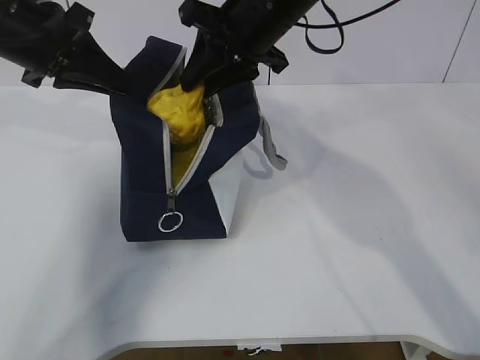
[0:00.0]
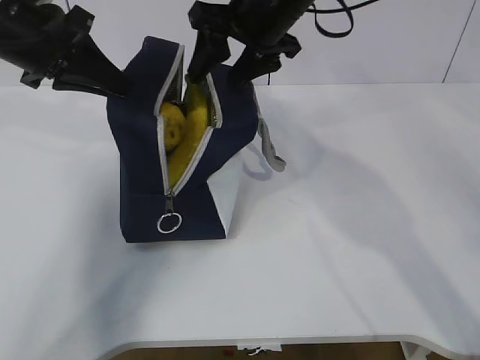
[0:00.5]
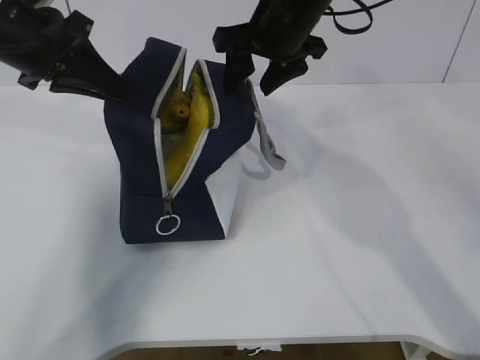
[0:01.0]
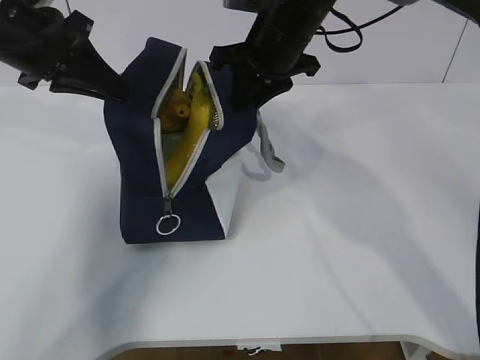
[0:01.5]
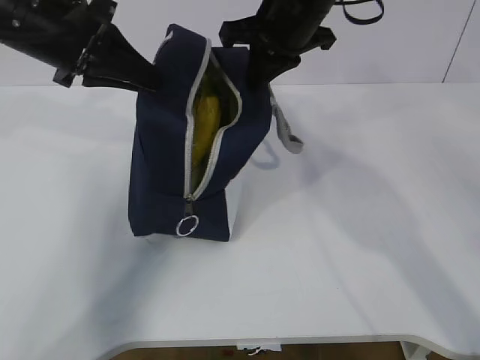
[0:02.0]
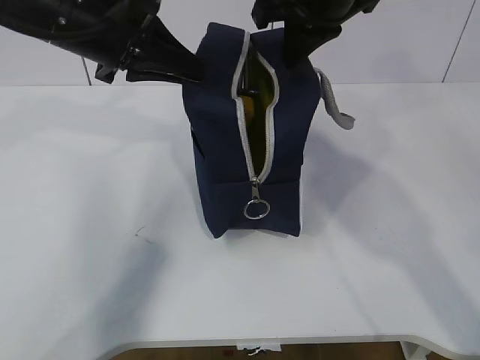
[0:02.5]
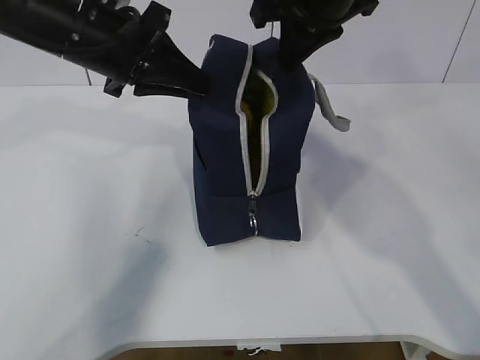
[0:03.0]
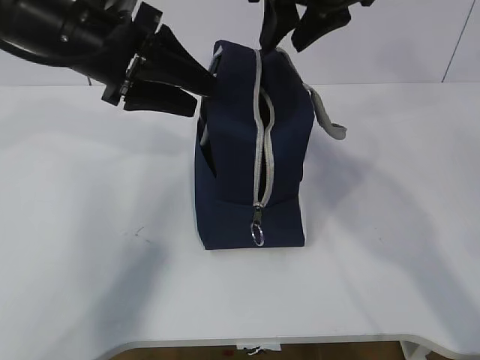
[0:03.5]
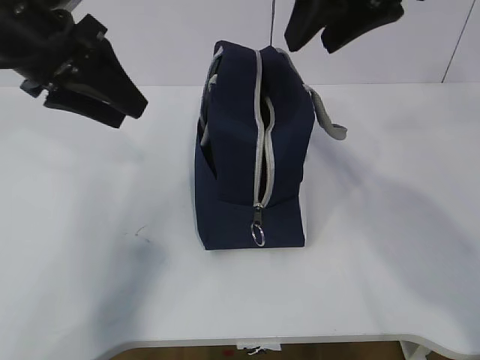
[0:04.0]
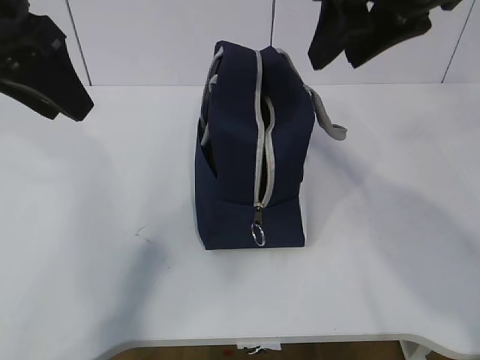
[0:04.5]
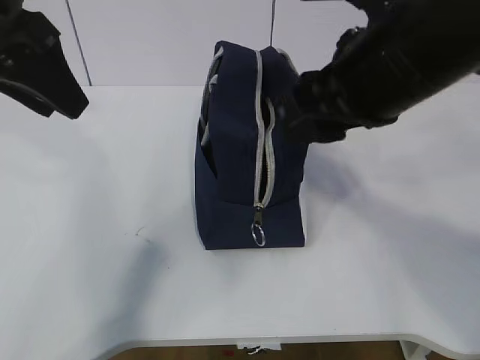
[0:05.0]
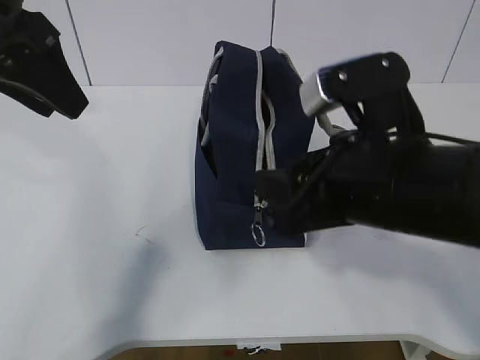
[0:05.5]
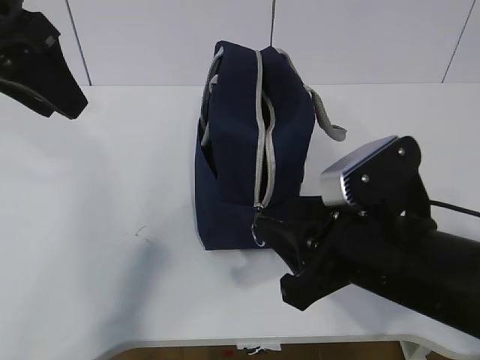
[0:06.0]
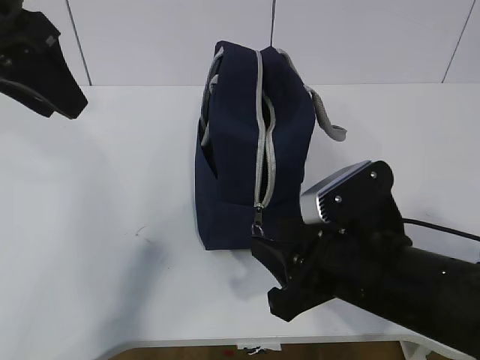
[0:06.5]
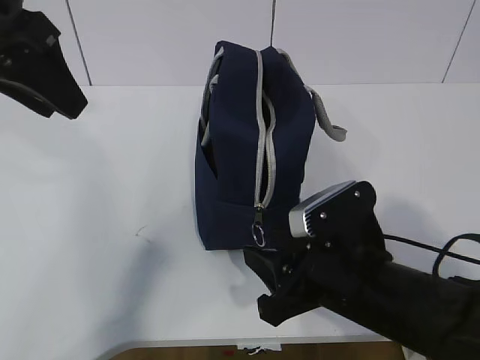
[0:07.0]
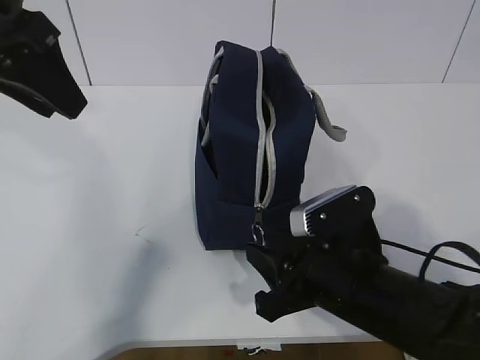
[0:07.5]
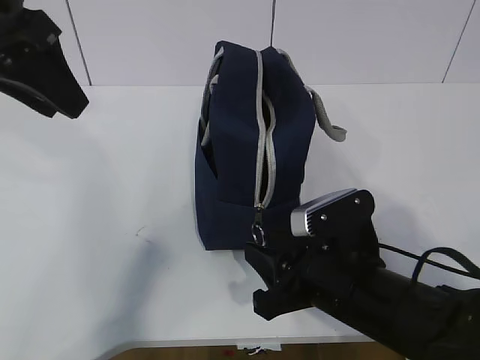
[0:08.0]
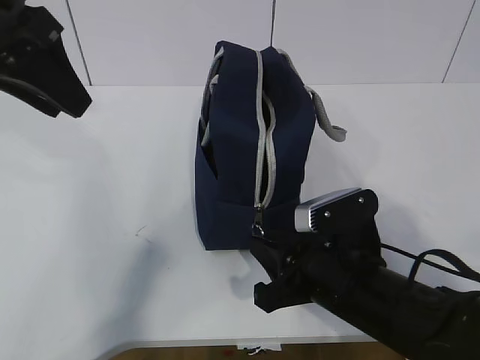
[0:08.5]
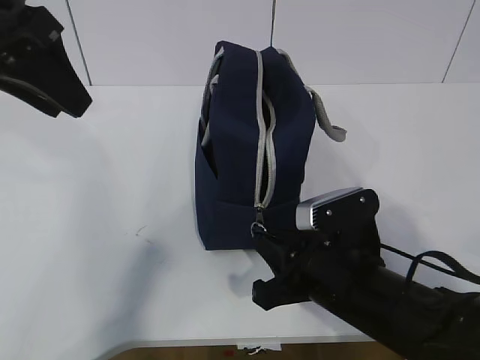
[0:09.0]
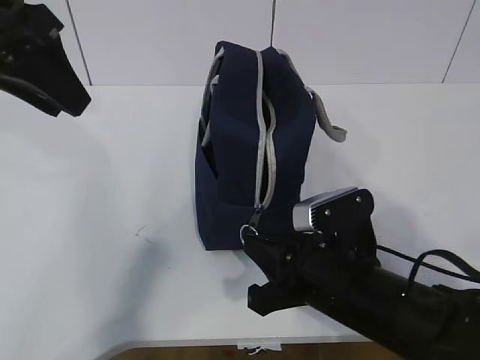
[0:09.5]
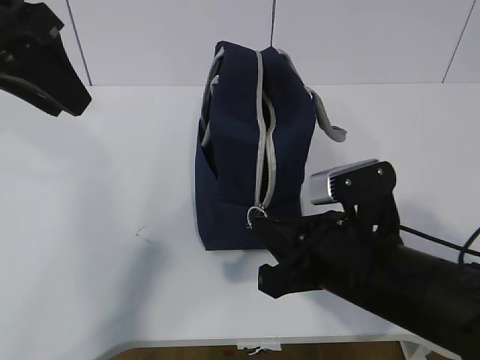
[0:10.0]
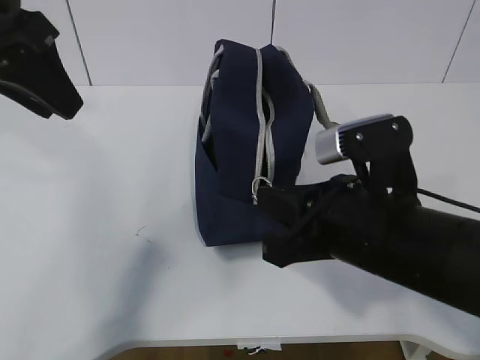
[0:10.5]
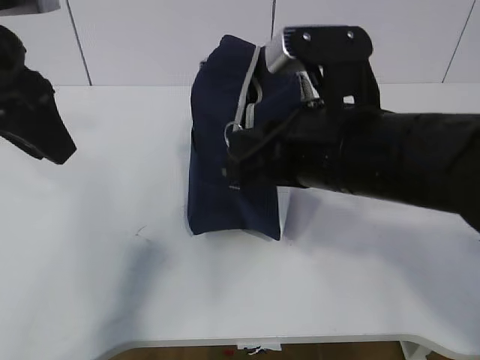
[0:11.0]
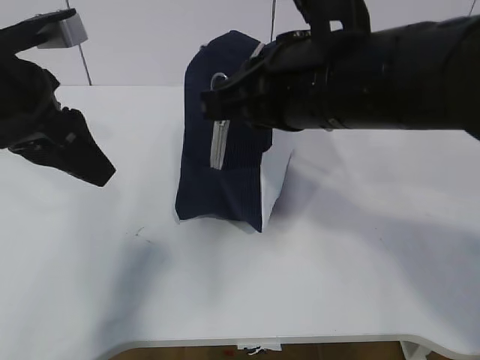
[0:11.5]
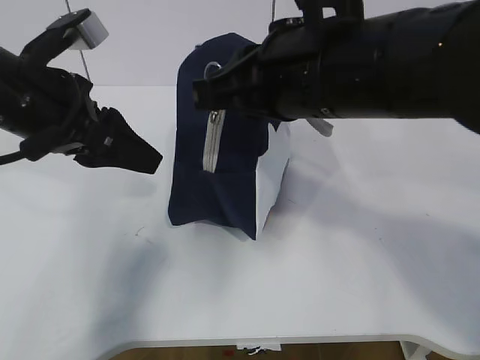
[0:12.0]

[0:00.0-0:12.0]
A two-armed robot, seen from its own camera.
0:00.0 to 0:02.0: The right gripper closes its fingers.
0:02.0 to 0:04.0: The left gripper opens its fingers, while the right gripper moves backward and upward, some 15 cm, and opens its fingers.
0:04.0 to 0:06.0: The left gripper shifts approximately 5 cm backward, while the right gripper travels downward and backward by some 25 cm.
0:06.0 to 0:08.0: The right gripper heads downward, covering about 10 cm.
0:08.0 to 0:10.0: The right gripper closes.
0:10.0 to 0:12.0: The left gripper heads downward, covering approximately 10 cm, while the right gripper moves upward, approximately 15 cm.

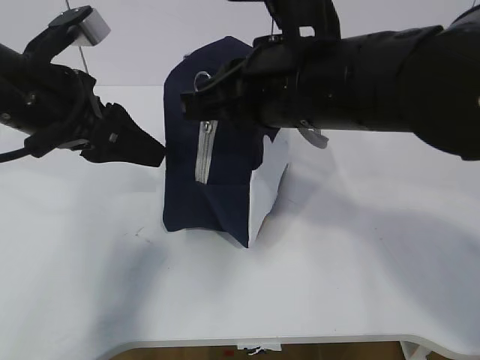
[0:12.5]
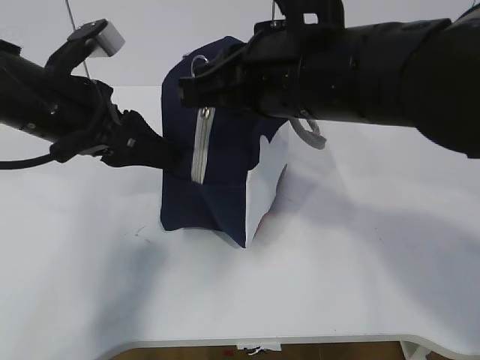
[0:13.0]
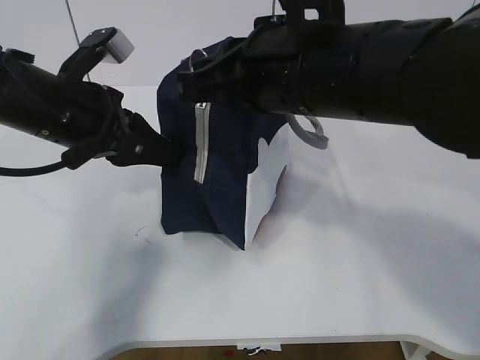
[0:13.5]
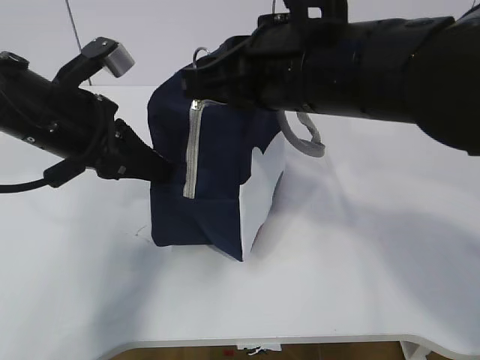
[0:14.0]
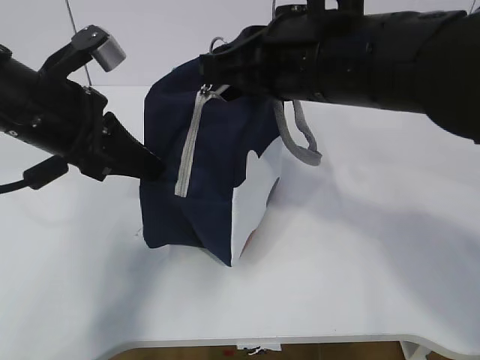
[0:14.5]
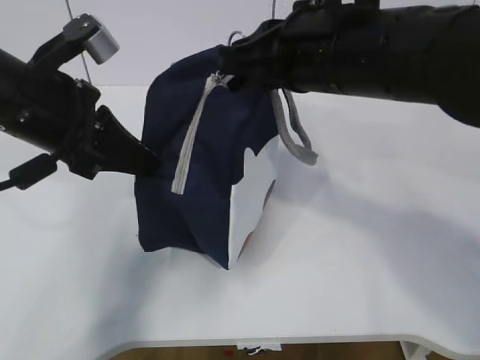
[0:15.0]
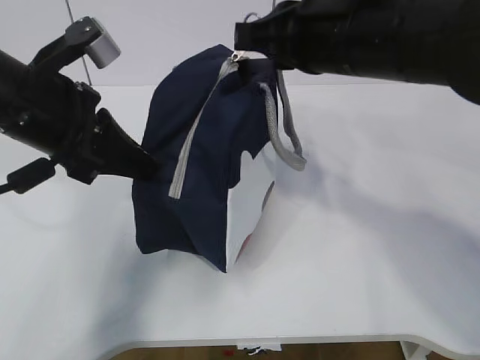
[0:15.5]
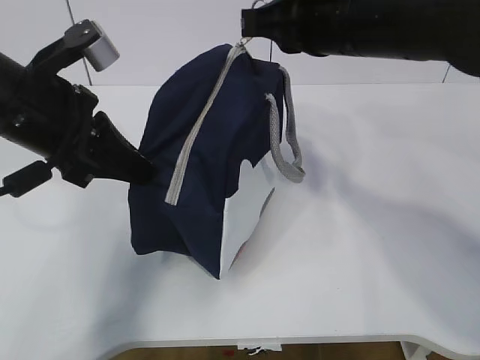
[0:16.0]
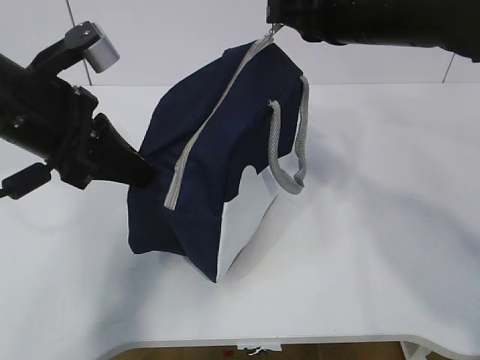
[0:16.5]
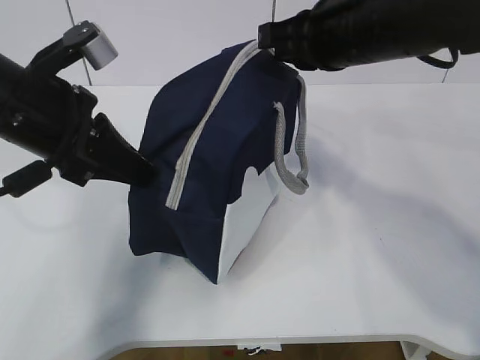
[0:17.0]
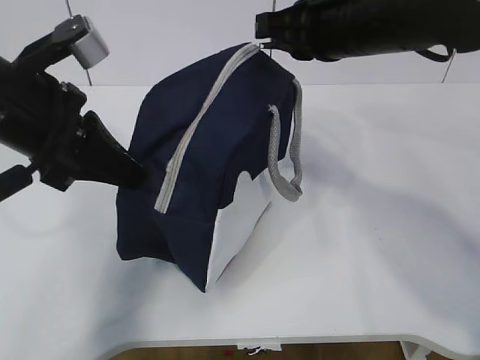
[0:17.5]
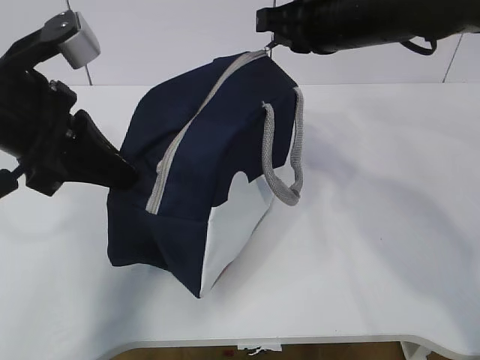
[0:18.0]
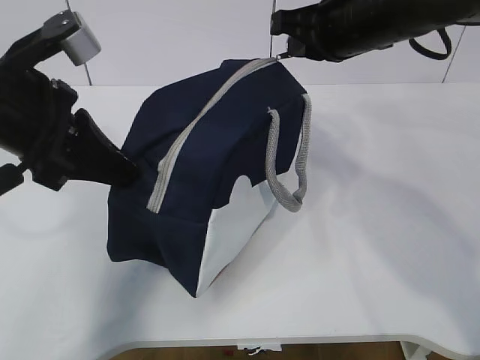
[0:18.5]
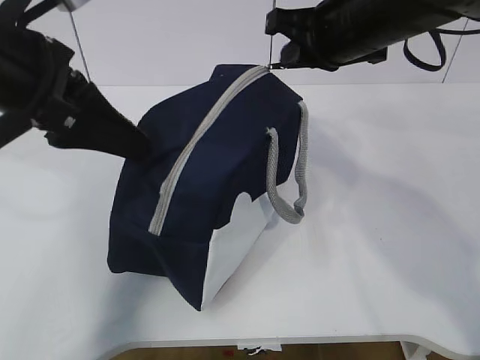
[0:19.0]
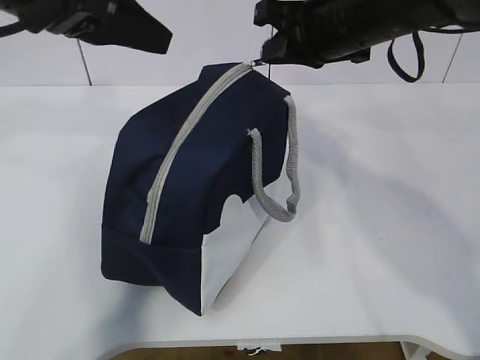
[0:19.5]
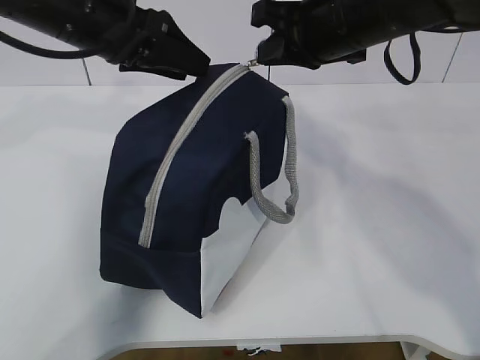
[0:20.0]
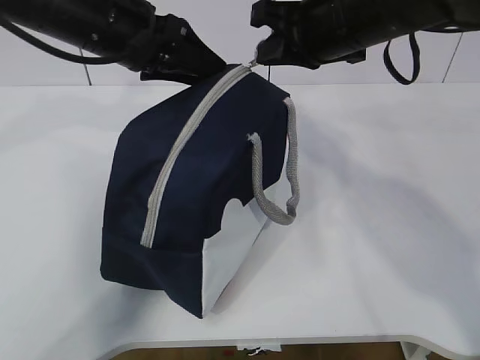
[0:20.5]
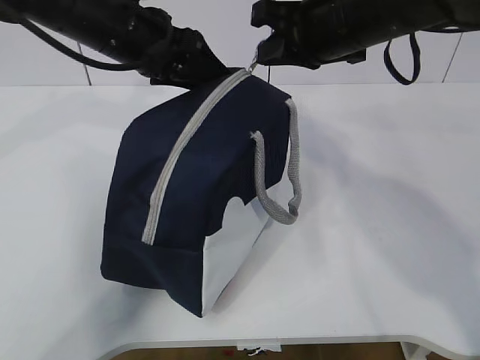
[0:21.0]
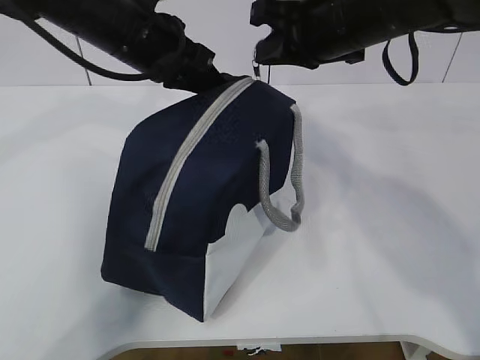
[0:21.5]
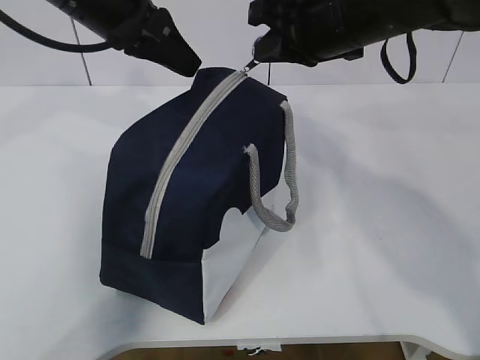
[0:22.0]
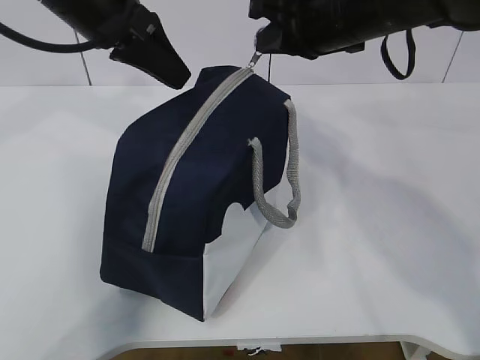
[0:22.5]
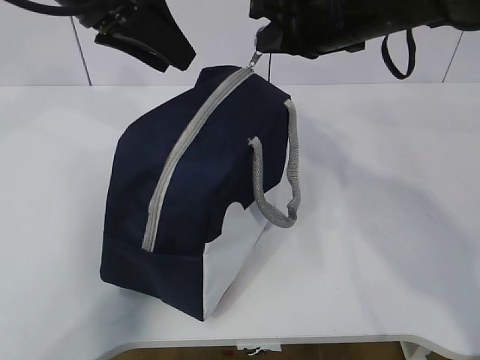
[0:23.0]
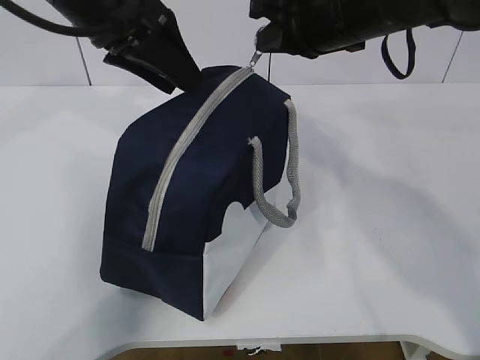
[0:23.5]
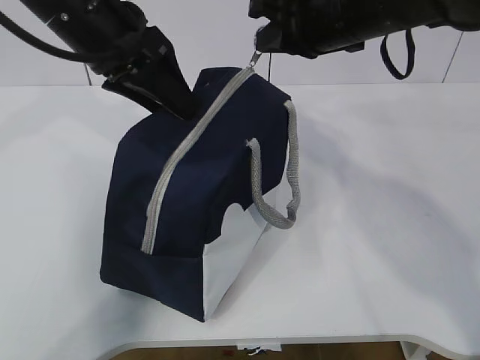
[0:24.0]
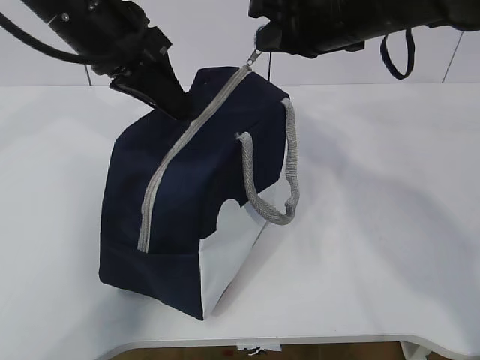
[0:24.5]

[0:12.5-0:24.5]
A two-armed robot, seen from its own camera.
0:12.5 to 0:14.5: The left gripper closes.
0:14.5 to 0:16.5: The right gripper shifts about 10 cm forward and to the right.
0:16.5 to 0:18.5: The grippers stay close to where they were, moving slightly.
0:18.5 to 0:20.5: The left gripper shifts roughly 15 cm forward and to the right, and opens its fingers.
0:20.5 to 0:22.5: The left gripper closes.
0:22.5 to 0:24.5: The left gripper opens, then closes once more.

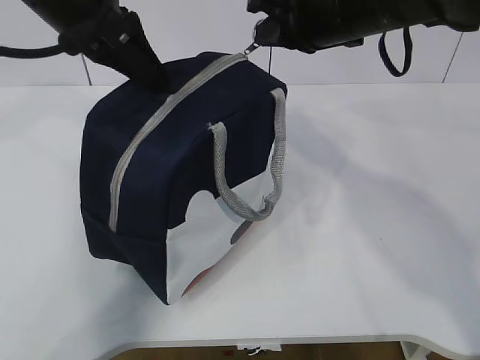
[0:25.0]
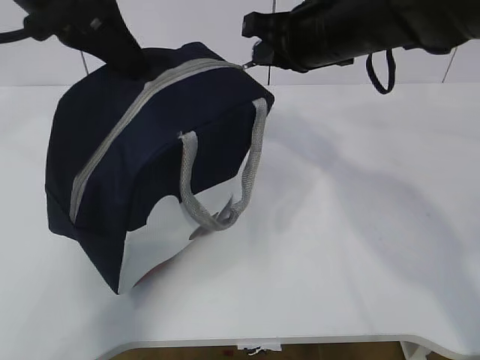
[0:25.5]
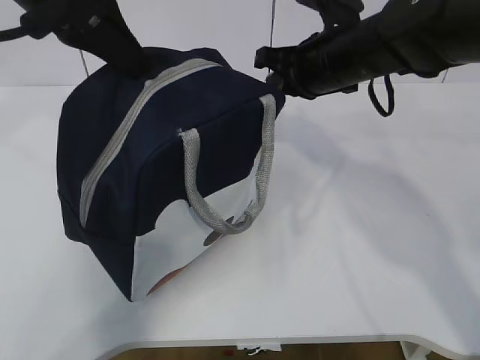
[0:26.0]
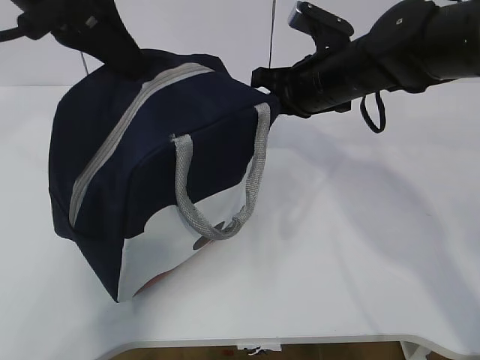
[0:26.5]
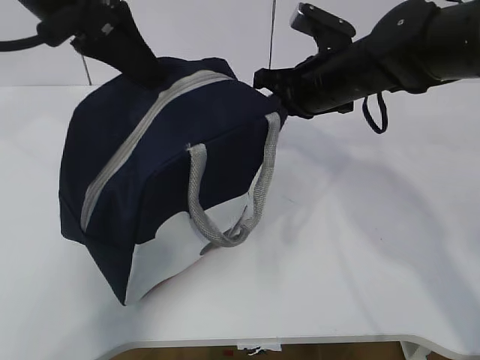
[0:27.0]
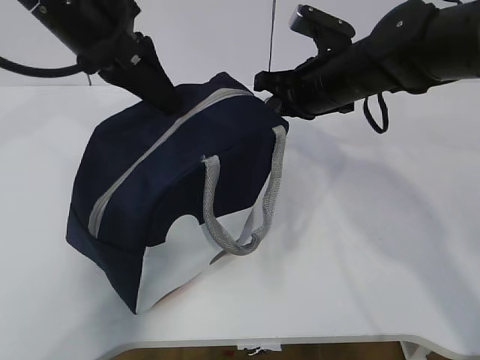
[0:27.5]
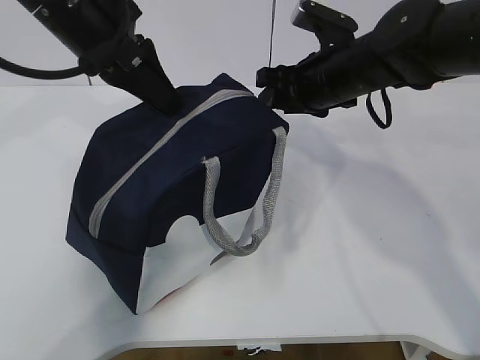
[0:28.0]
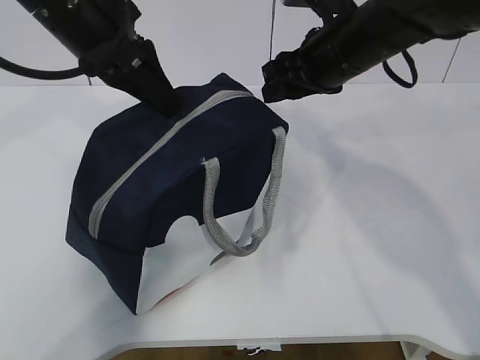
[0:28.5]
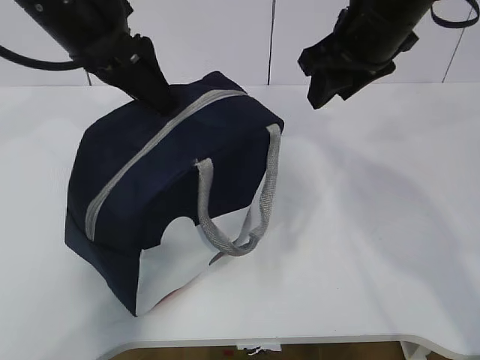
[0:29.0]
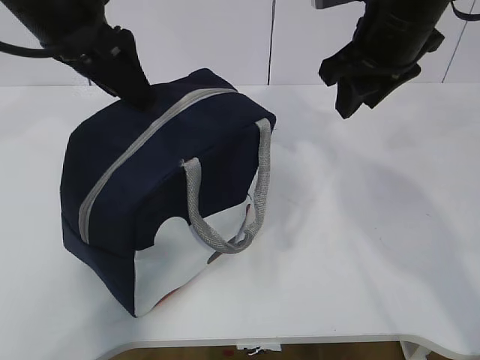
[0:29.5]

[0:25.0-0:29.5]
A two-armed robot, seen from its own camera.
Step, 0:25.0 to 0:28.5: zip up the zipper to close the bag.
0:25.0 to 0:27.0: The right gripper shifts some 10 cm downward.
0:27.0 to 0:29.5: The right gripper goes some 10 cm upward, and opens up; the left gripper opens up.
